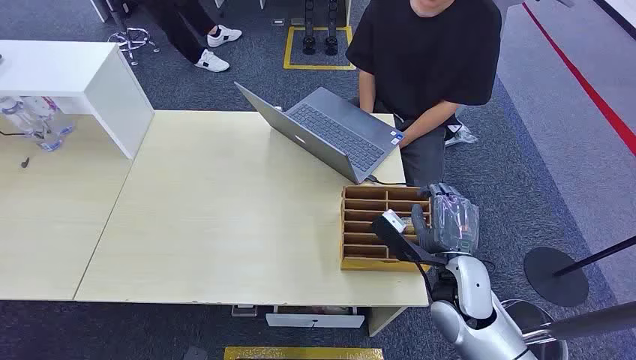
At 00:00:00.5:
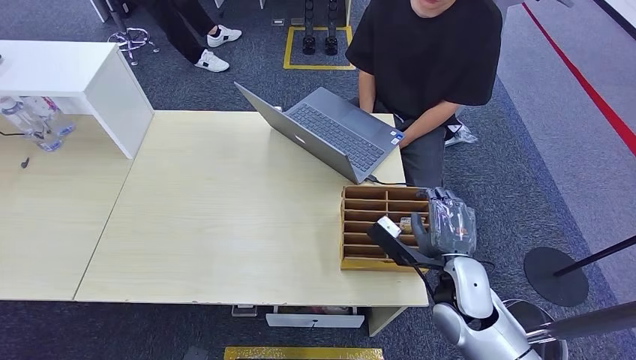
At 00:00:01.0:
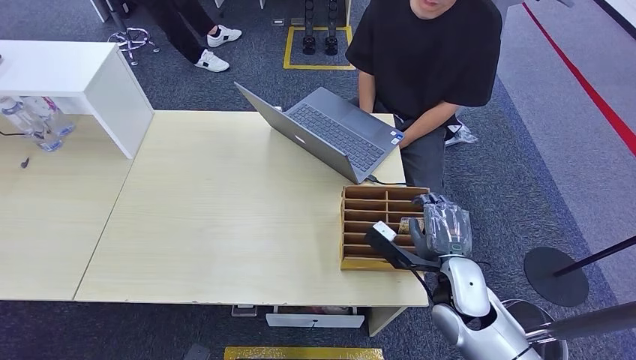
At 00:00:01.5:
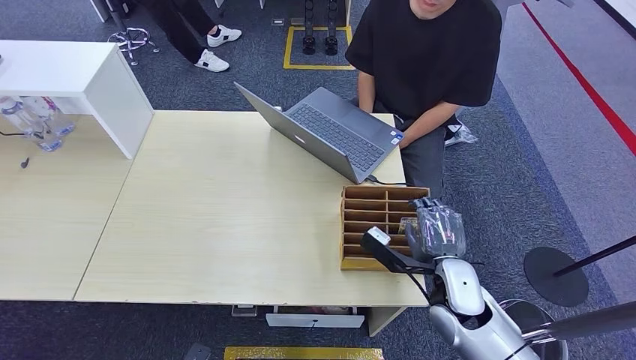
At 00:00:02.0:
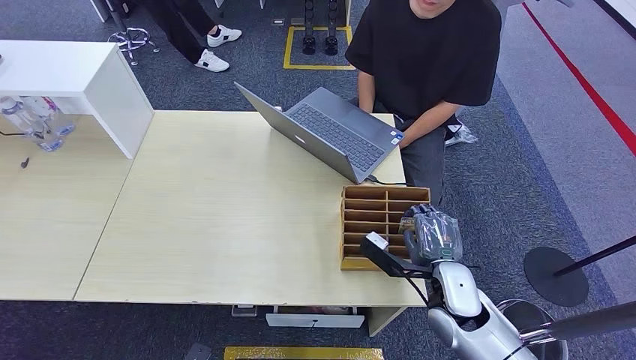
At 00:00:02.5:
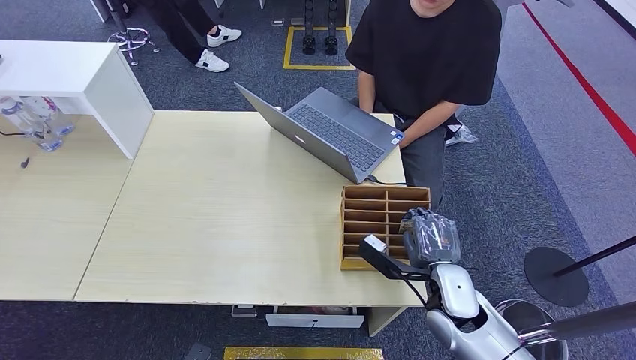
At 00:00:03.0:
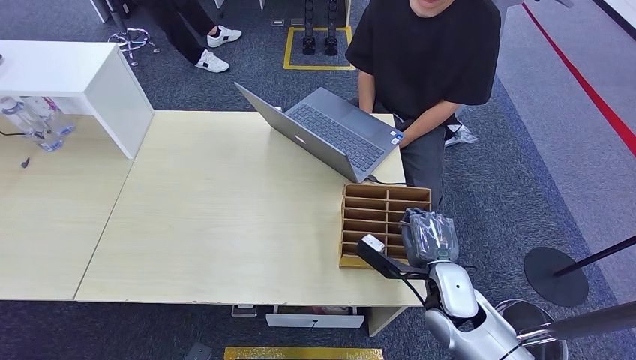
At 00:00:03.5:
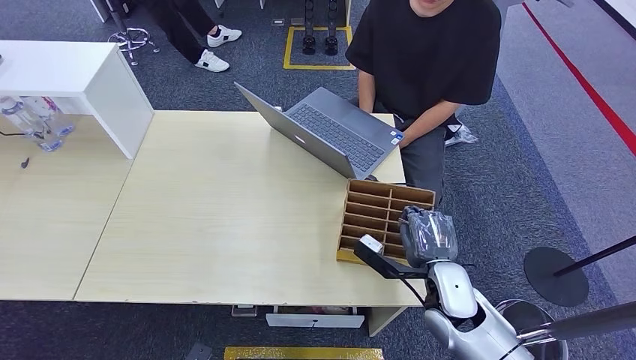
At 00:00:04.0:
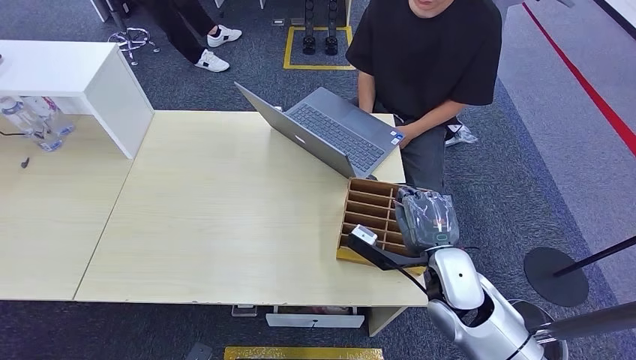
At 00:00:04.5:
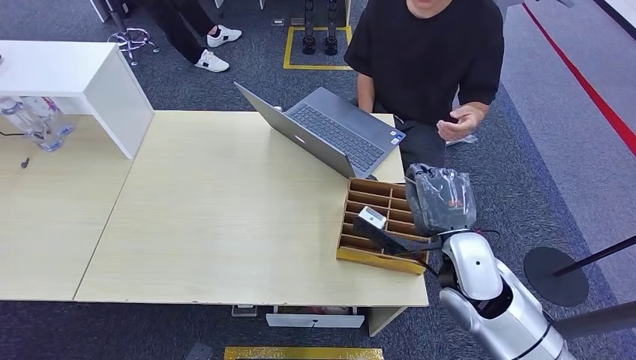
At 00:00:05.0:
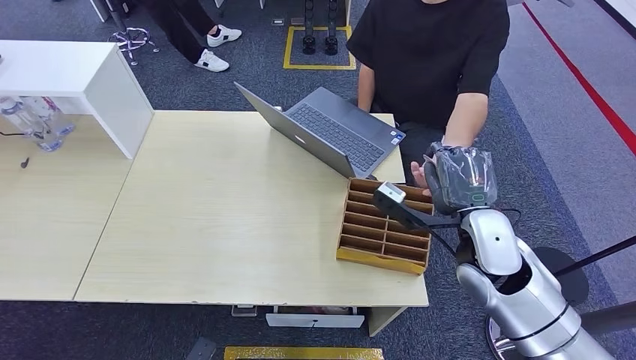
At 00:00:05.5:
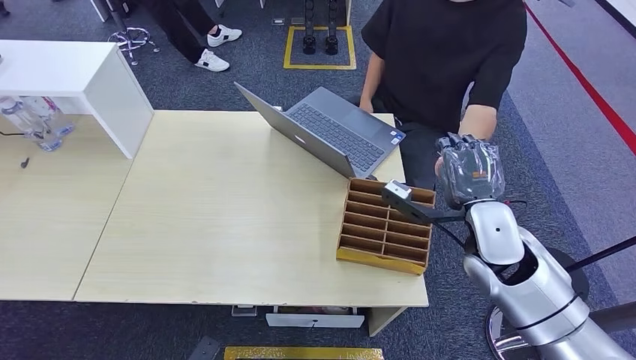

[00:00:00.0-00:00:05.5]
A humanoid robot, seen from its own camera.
Step, 00:00:00.0 to 00:00:04.5: Pick up the room card from the card holder.
Step, 00:00:05.0 to 00:00:05.5: Hand the room card to the target.
00:00:02.0 to 00:00:03.5: Both hands stay about where they are.
00:00:03.5 to 00:00:05.5: The right hand moves upward, about 10 cm.
